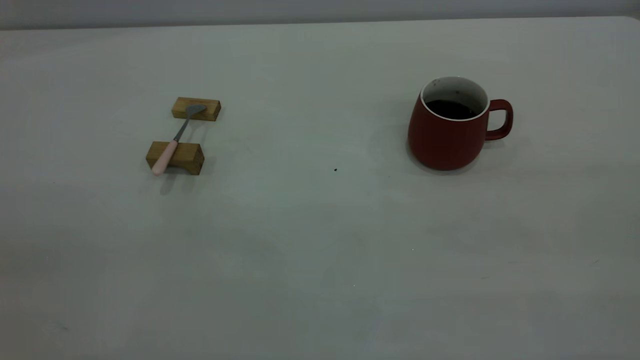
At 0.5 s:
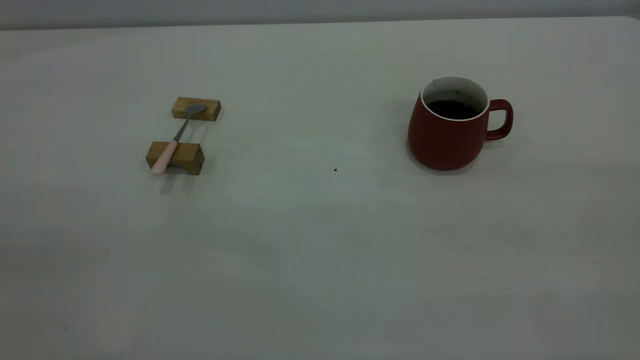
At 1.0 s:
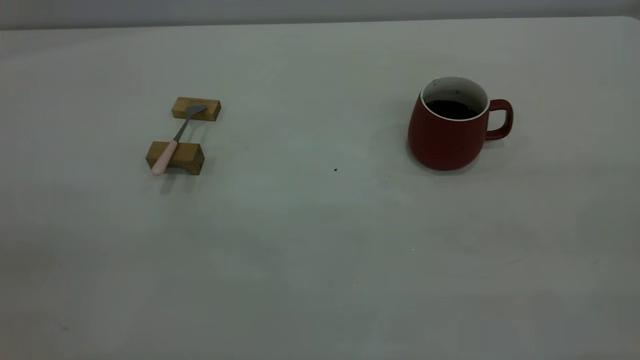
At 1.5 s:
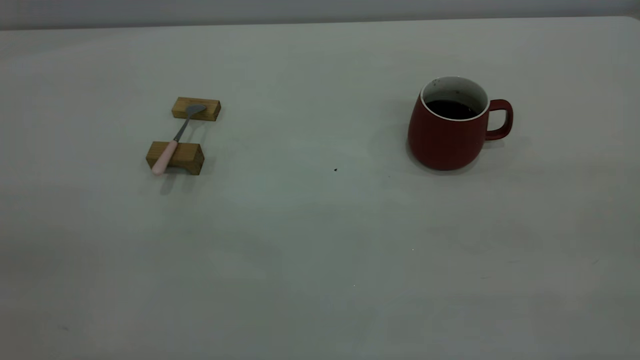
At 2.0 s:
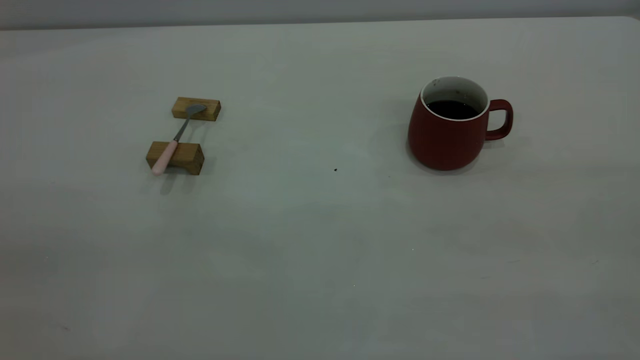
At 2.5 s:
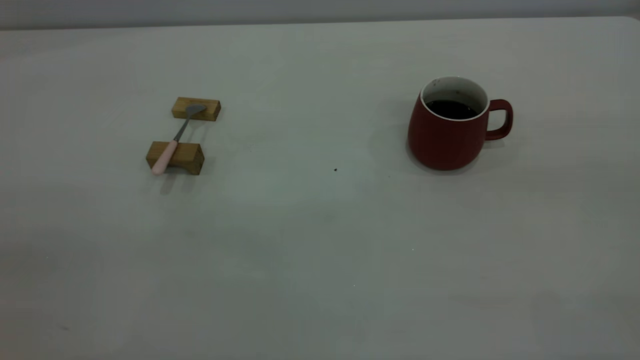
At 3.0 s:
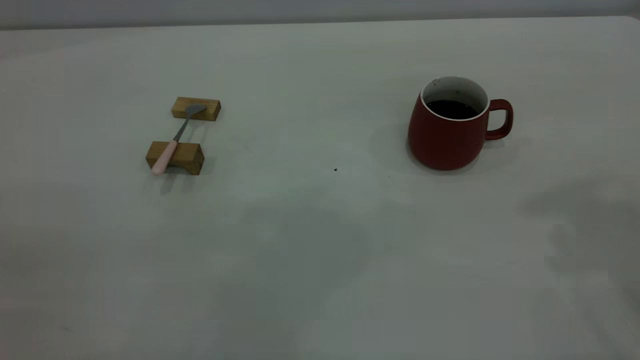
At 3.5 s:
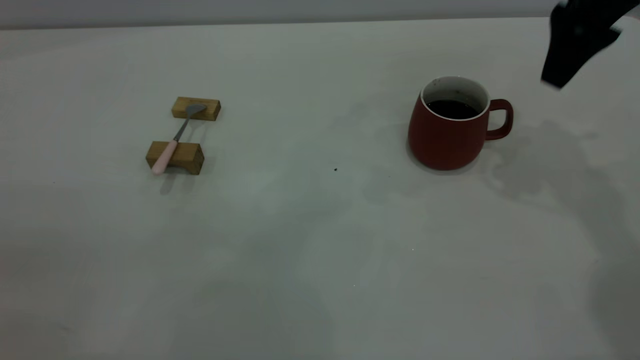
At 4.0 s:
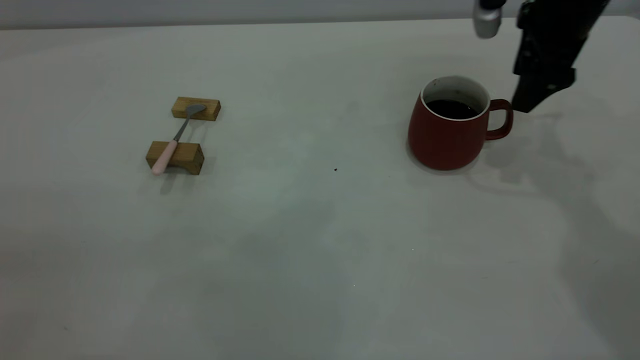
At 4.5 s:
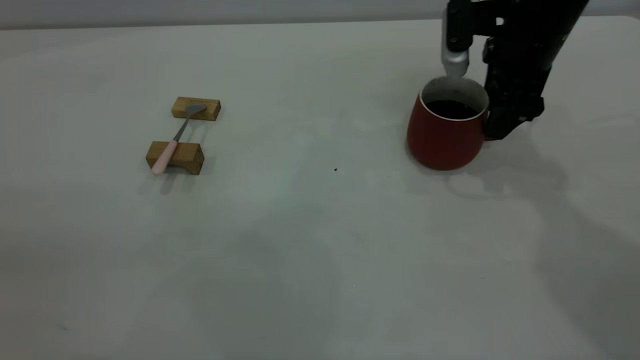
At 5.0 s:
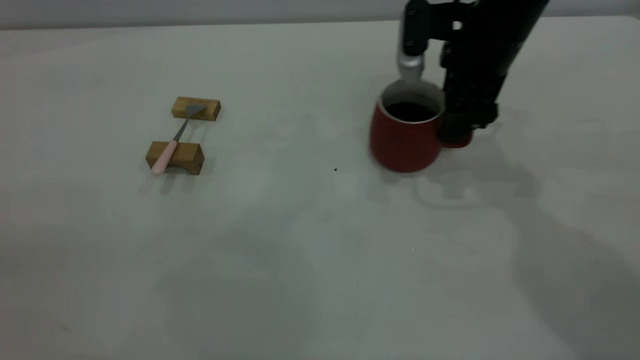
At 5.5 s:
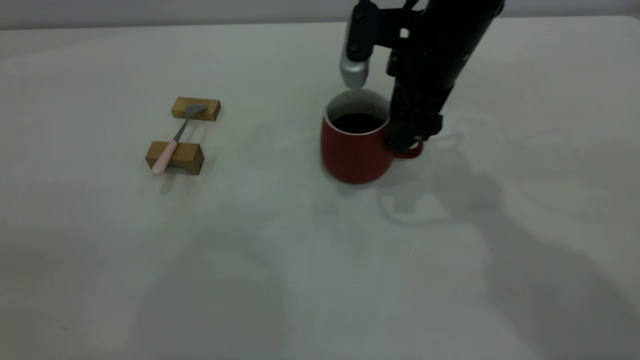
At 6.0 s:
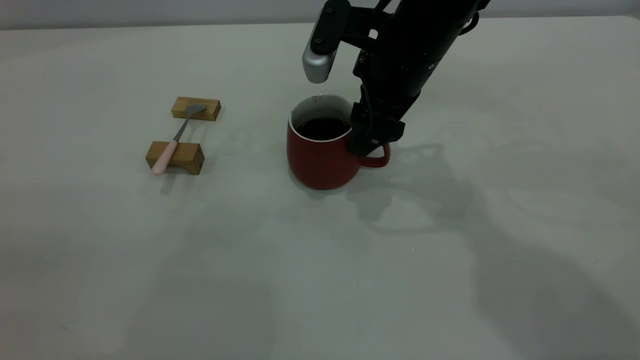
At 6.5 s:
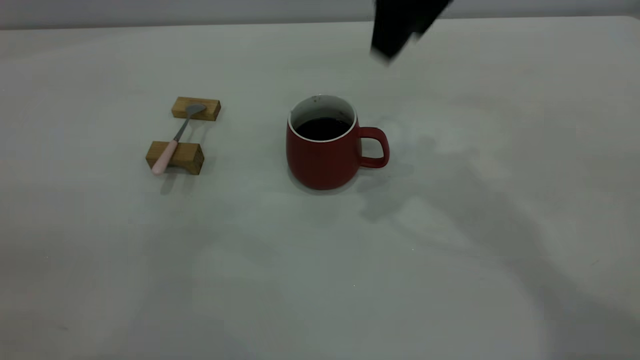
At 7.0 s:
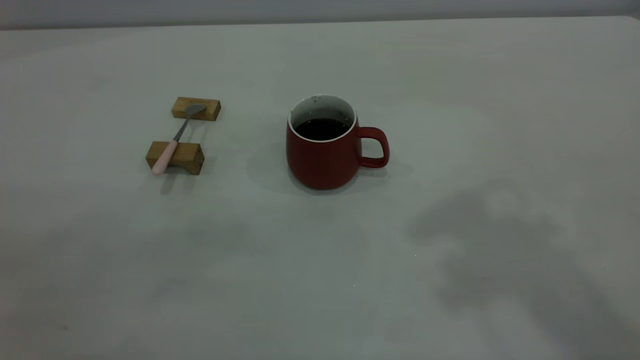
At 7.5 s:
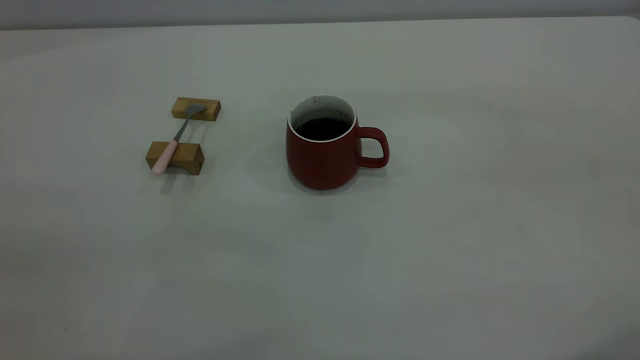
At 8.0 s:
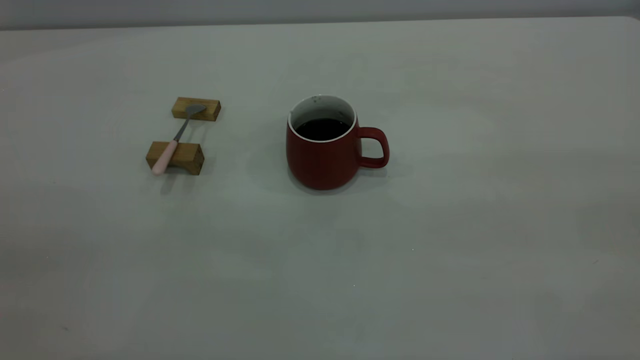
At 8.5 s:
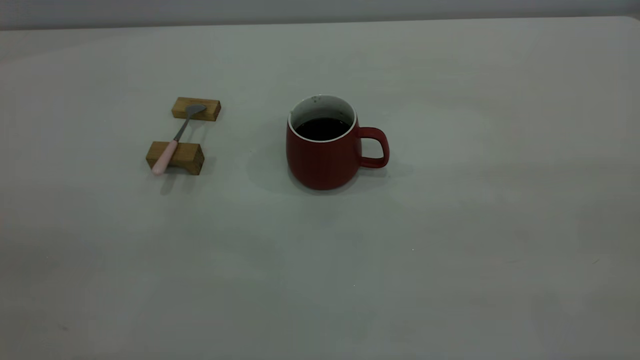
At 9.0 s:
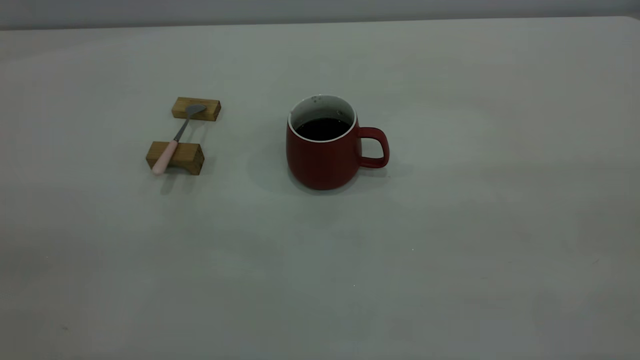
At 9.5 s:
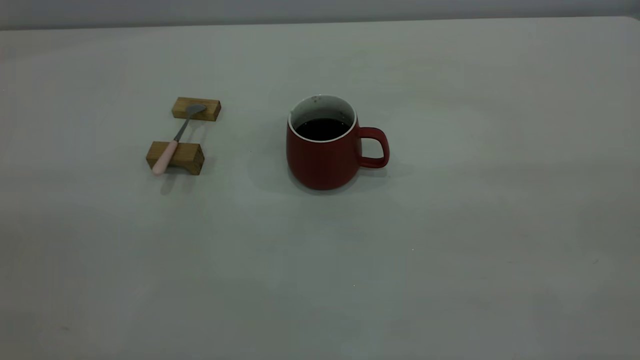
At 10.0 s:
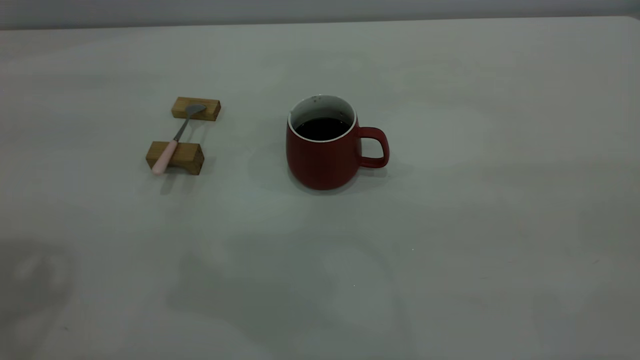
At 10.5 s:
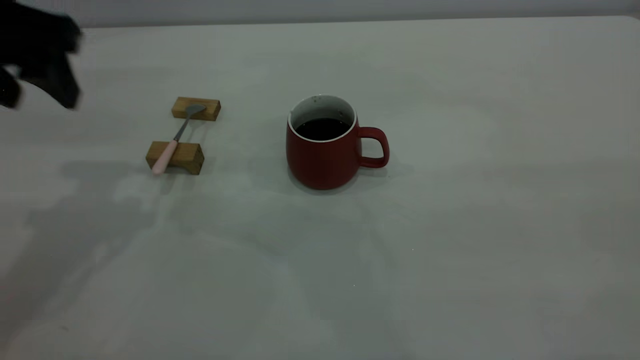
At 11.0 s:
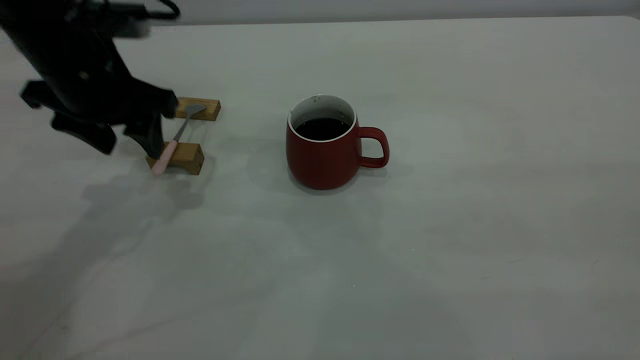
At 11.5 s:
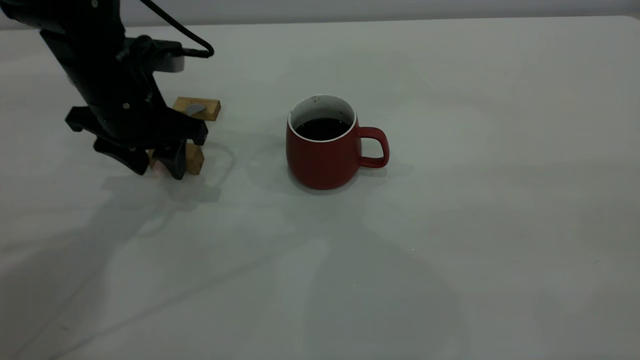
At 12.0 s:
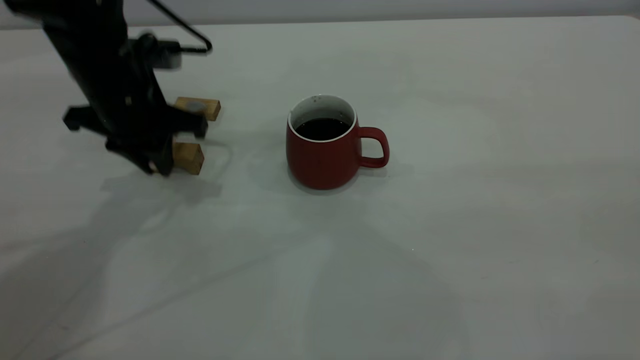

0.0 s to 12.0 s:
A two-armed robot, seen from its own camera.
Step, 0.0 to 6.0 s: Move the cup with coffee to the center of view.
Step, 6.5 to 12.0 s: Pick up the spoon.
0.0 to 2.0 s: Both grippers stay about where they are.
2.0 to 4.0 s: The right gripper heads forward and downward, covering some 50 cm, and opens up.
4.0 to 6.0 s: The right gripper travels to the left by roughly 15 cm.
6.0 to 8.0 s: The right gripper shifts some 50 cm backward, to the right and upward.
10.0 to 12.0 s: The left gripper is displaced downward, forward and to the right by roughly 30 cm, and closes.

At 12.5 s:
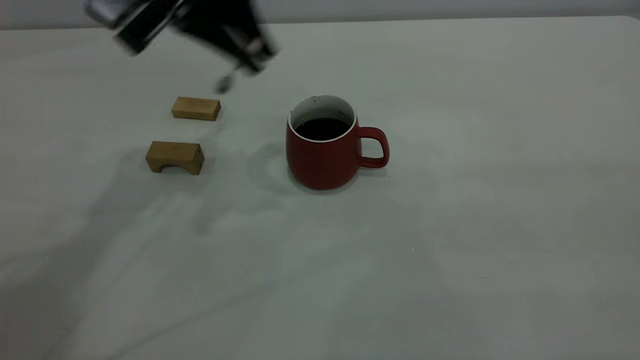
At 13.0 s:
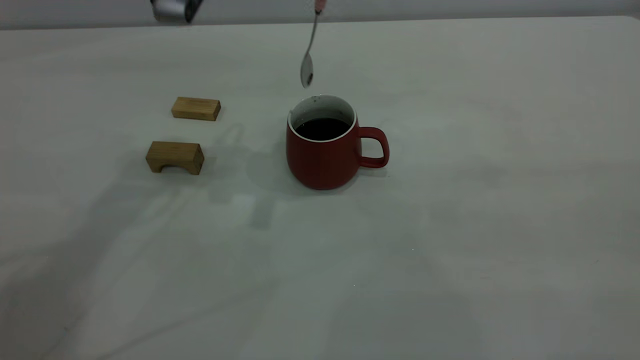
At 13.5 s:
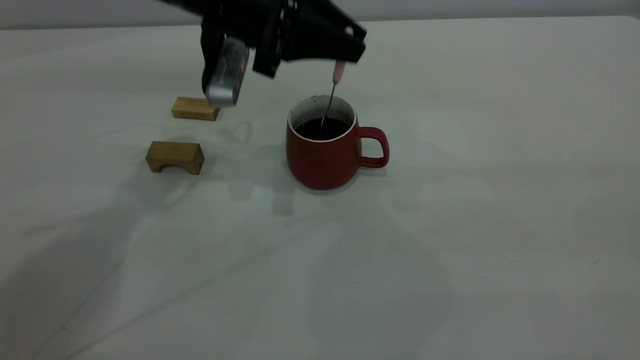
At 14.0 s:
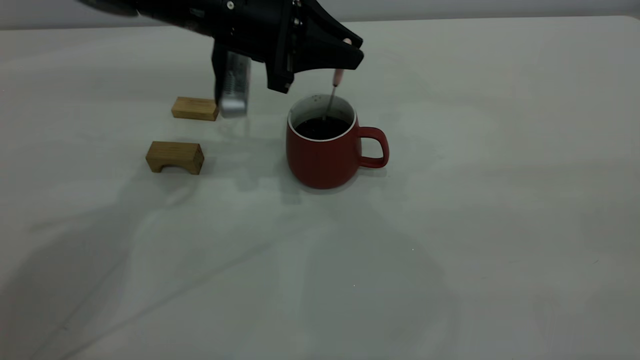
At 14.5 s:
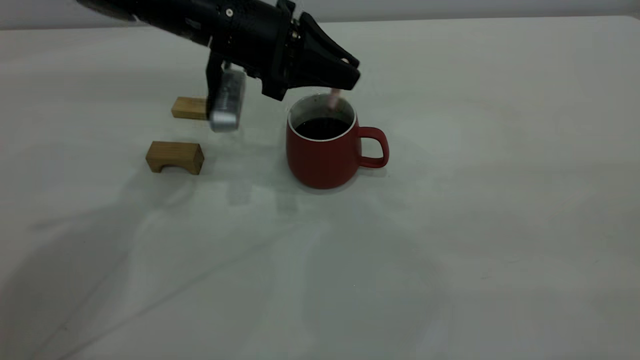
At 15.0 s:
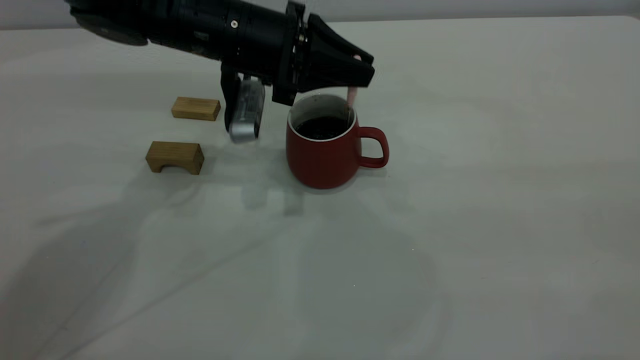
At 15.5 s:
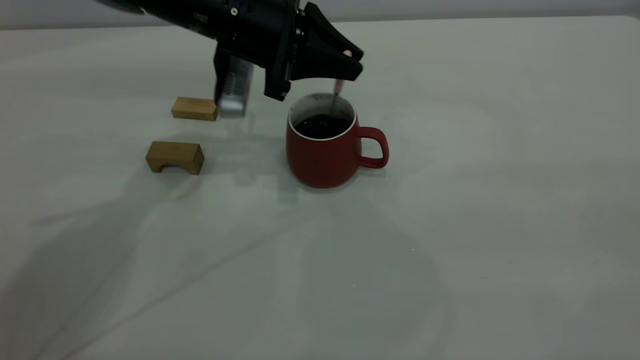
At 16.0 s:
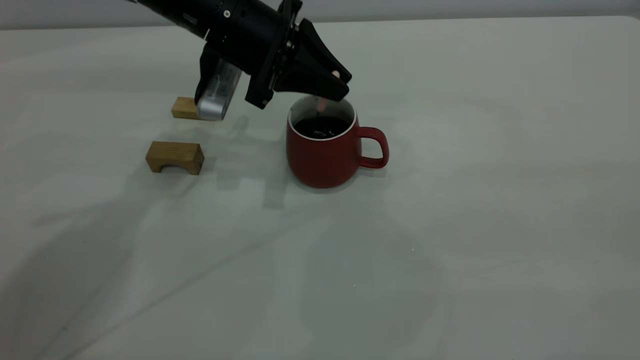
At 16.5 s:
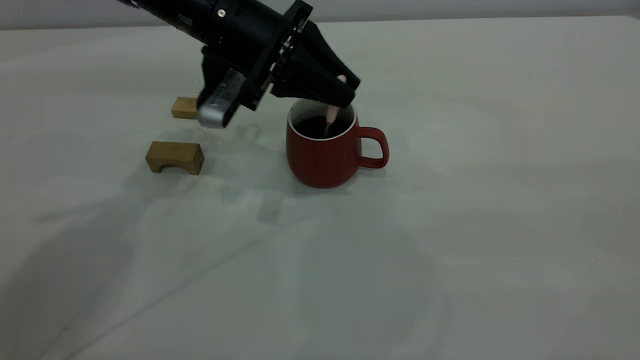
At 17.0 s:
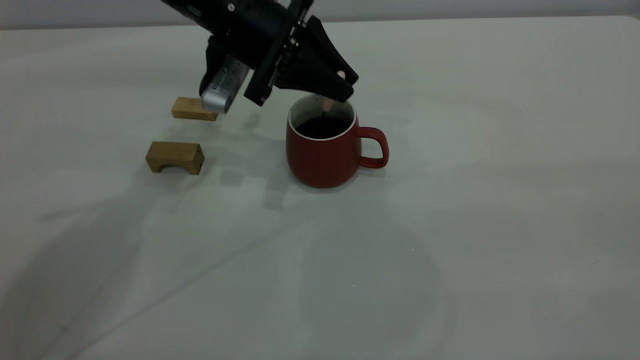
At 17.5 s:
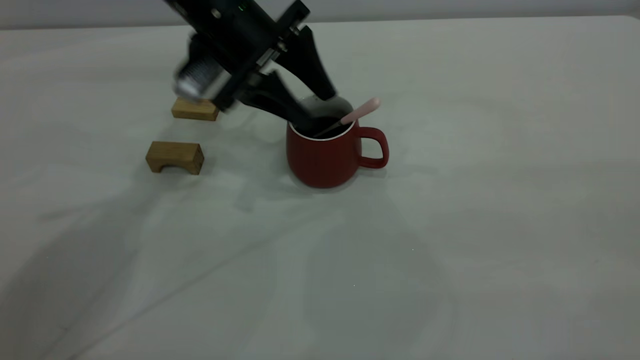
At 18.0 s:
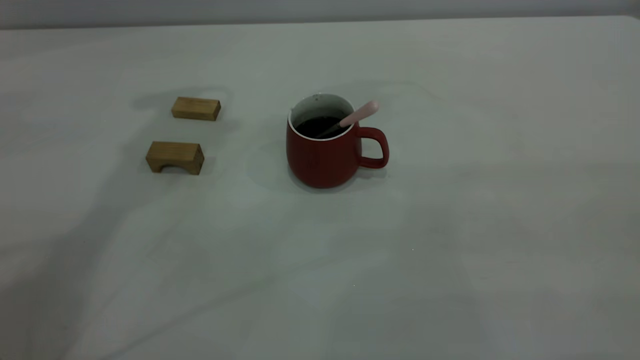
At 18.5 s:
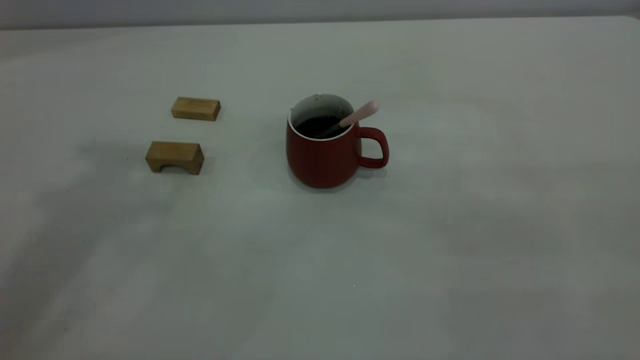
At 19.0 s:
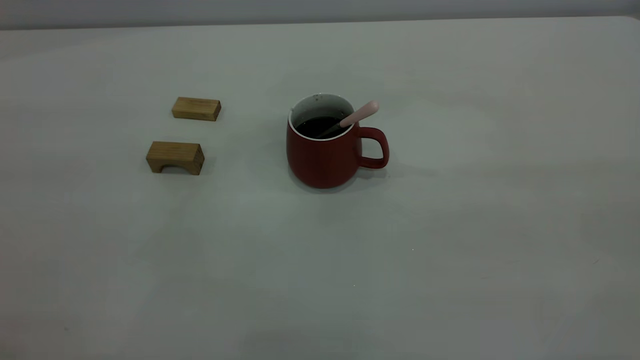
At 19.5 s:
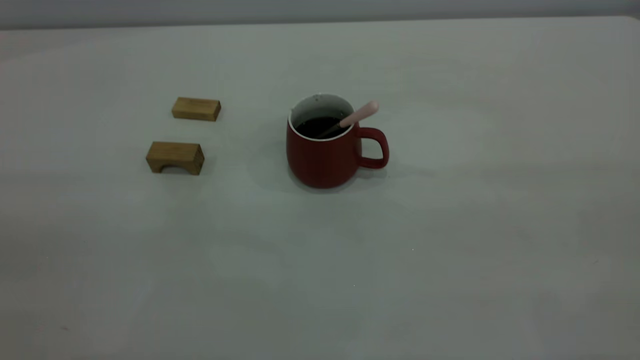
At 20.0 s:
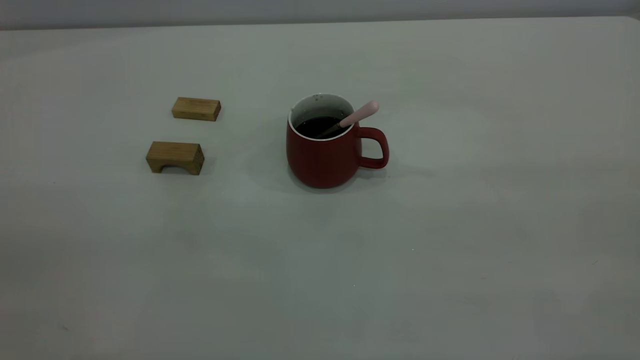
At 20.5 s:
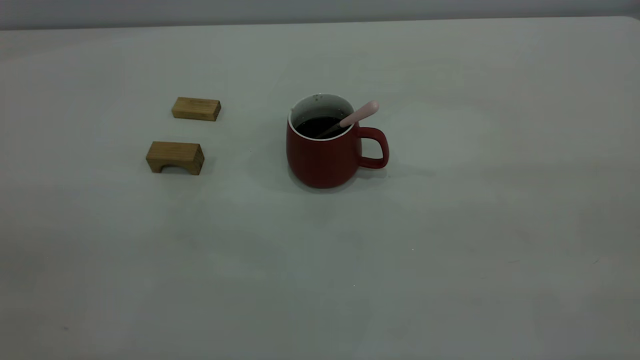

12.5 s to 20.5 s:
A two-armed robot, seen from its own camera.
Step, 12.5 to 17.5 s: Stir the coffee in the cup.
12.5 to 14.5 s: The left gripper goes approximately 10 cm downward.
14.5 to 16.5 s: There are only small adjustments of the grippers.
16.5 to 18.5 s: The left gripper shifts roughly 30 cm upward, and opens up.
